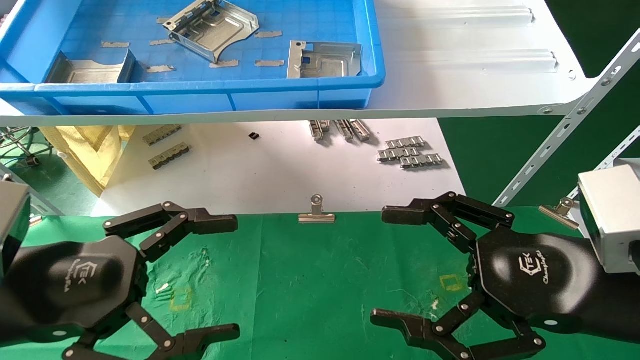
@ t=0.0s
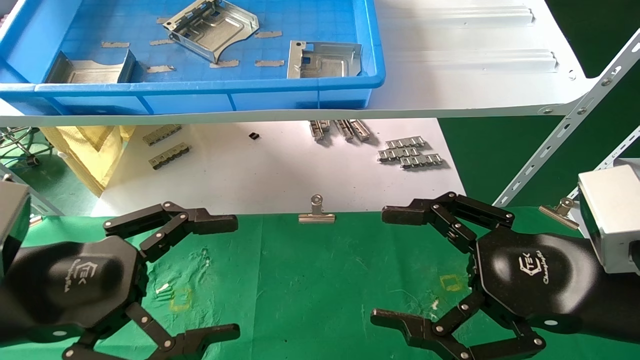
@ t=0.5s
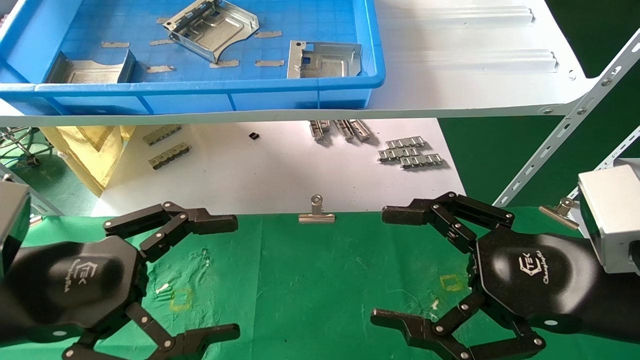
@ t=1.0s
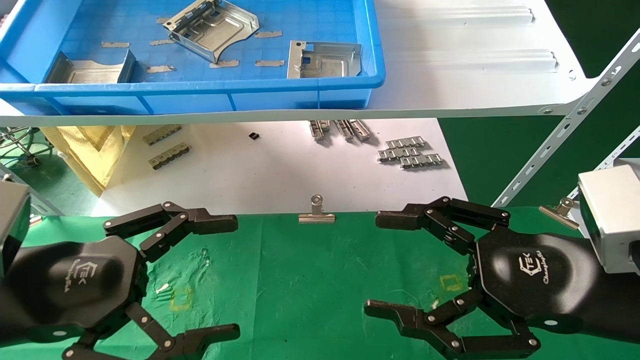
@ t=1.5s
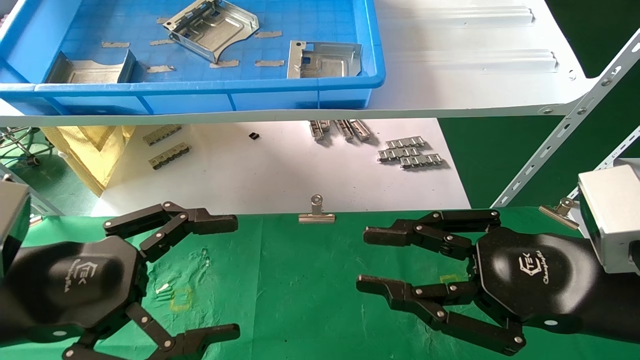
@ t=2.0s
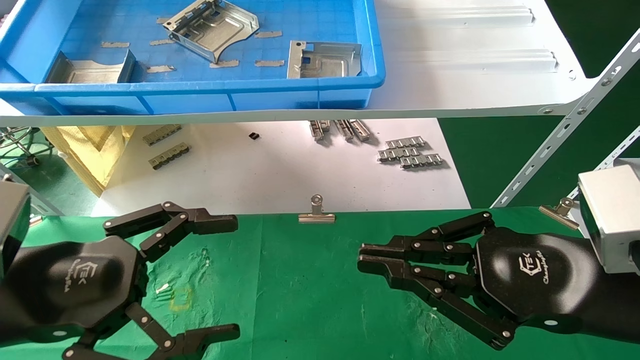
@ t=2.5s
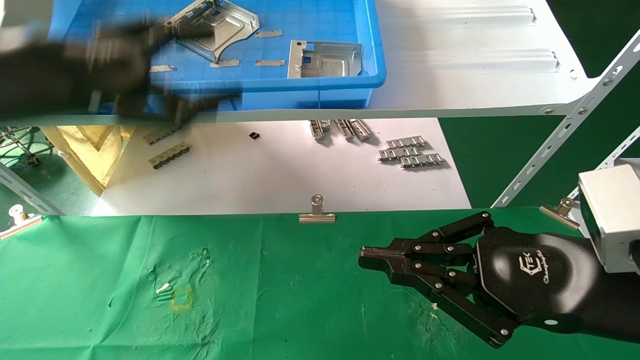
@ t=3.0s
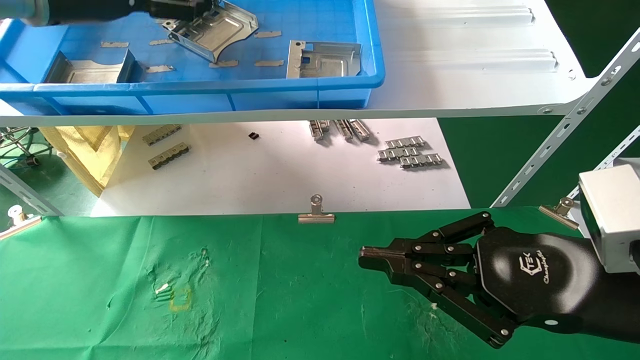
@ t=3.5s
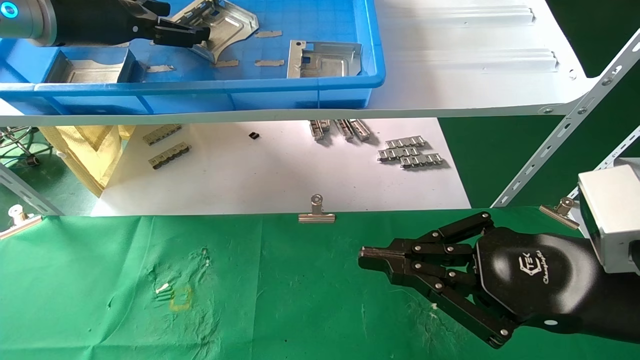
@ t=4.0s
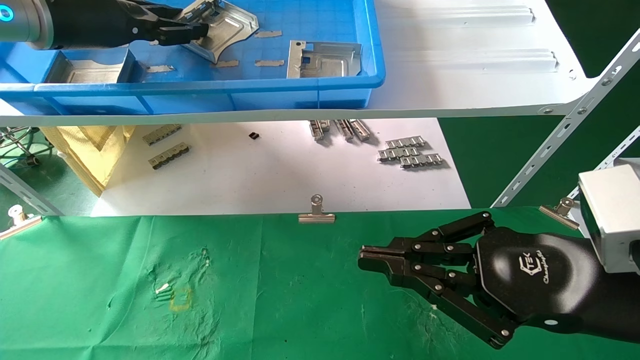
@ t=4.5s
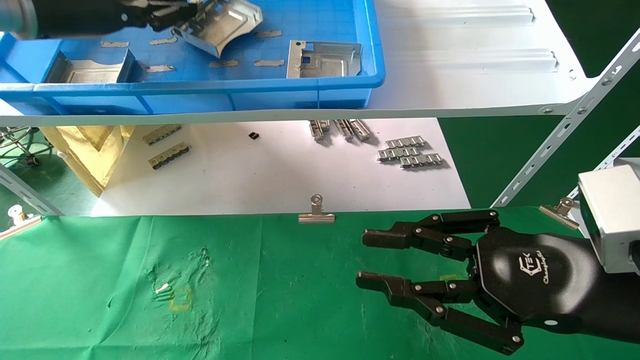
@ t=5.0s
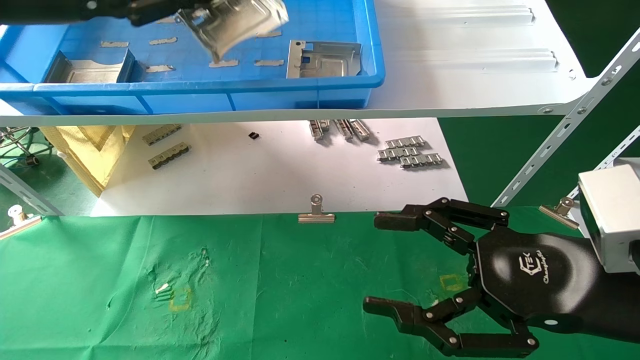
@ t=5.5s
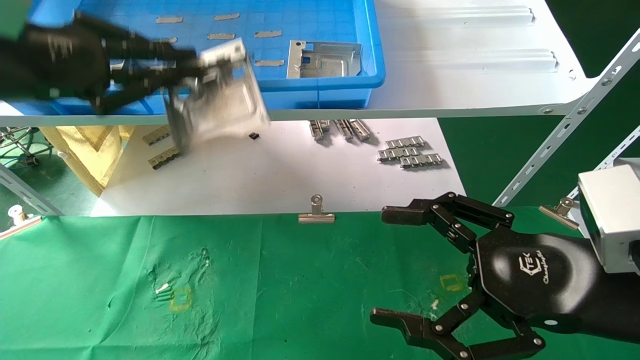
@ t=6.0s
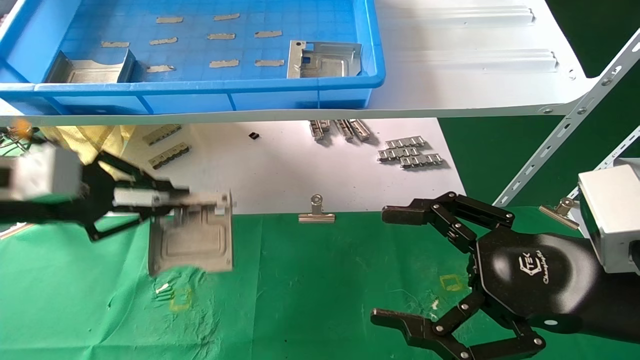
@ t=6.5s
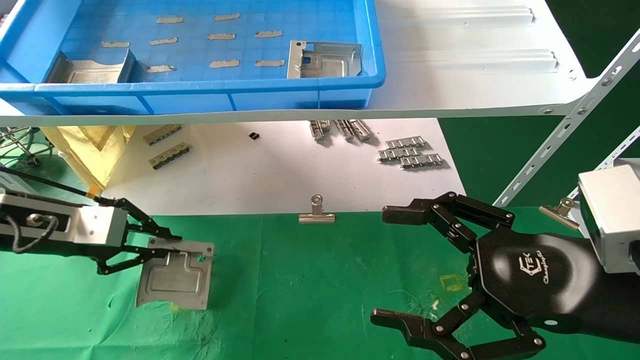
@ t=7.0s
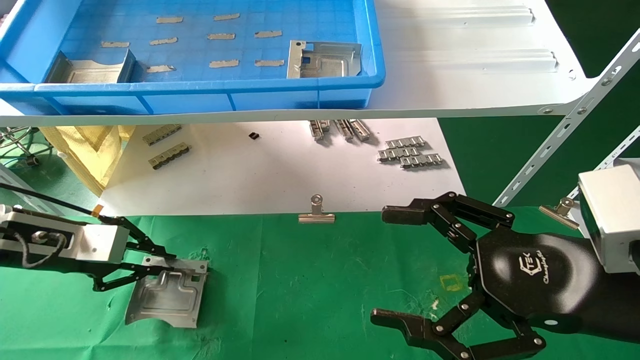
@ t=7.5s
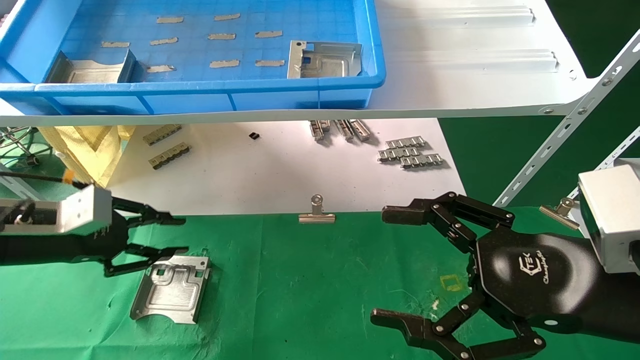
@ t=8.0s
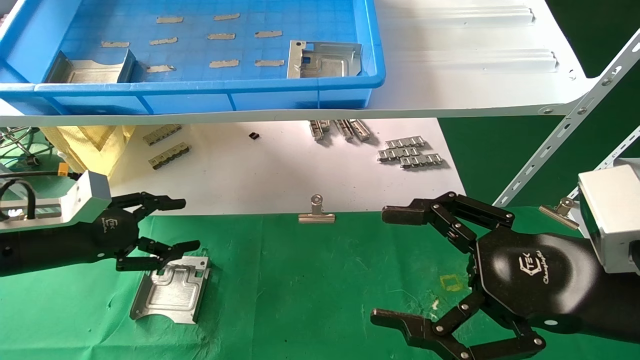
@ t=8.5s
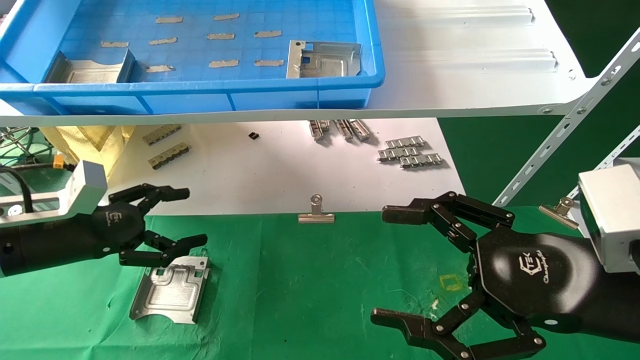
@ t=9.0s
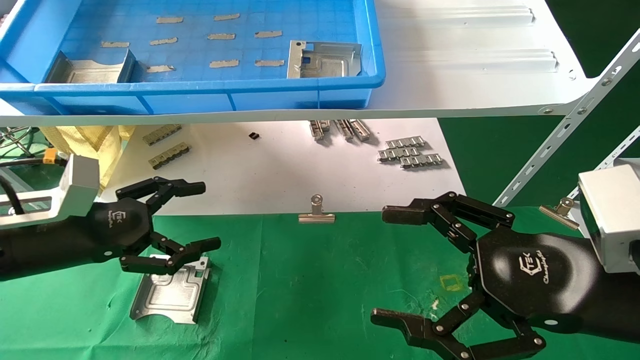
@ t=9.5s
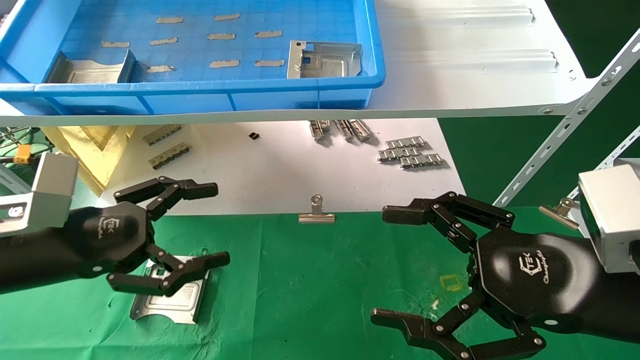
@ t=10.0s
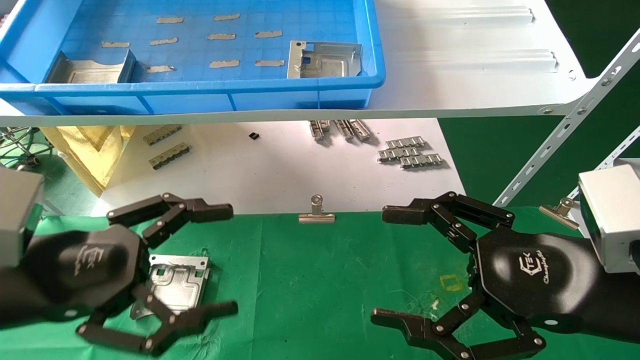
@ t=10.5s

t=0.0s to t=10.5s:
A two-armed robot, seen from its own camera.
Task of the whole recording: use the mechanical arm to pick up the parts and place them on the table.
Step, t=2.0s to t=5.0s: Pick up the hard drive bracket from the feeding area.
Step, t=5.5s to t=8.0s: Place the hard drive bracket into the box.
t=0.0s to t=2.0s: The right gripper closes its fingers.
t=2.0s to t=4.0s: The left gripper moves upward and forward, roughly 30 cm, while the right gripper closes up.
t=4.0s to t=6.5s: The left gripper travels downward and backward by some 20 cm, and closes up, while the right gripper opens its fingers.
t=6.5s to t=8.5s: The left gripper travels downward by roughly 10 cm, and opens up.
t=8.5s to t=10.5s: The left gripper heads backward and to the right, covering about 15 cm, and opens.
